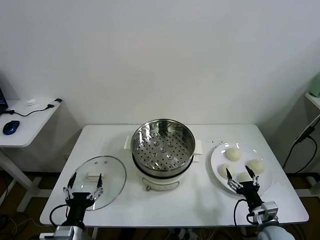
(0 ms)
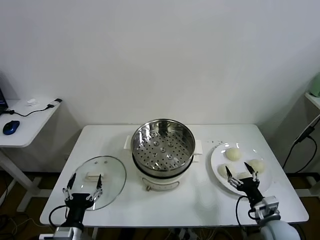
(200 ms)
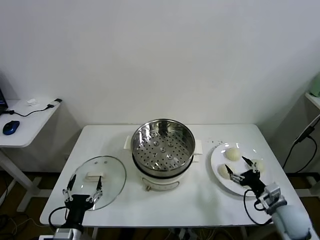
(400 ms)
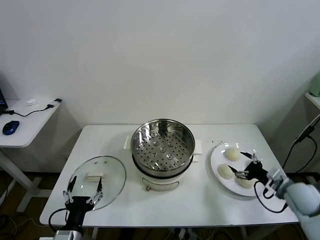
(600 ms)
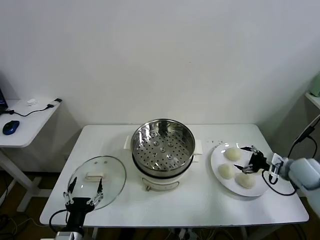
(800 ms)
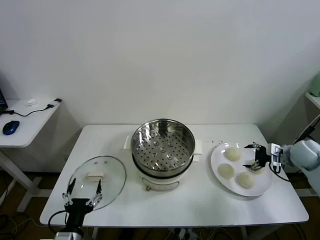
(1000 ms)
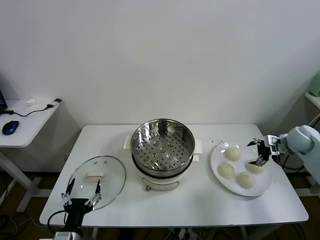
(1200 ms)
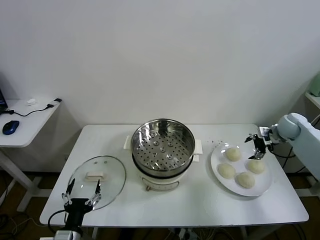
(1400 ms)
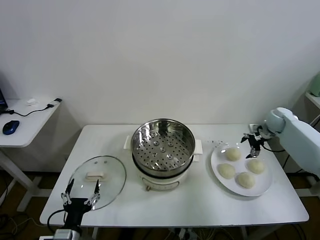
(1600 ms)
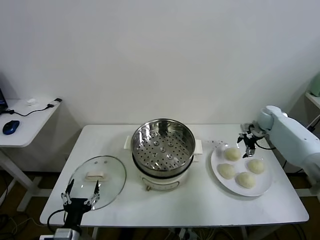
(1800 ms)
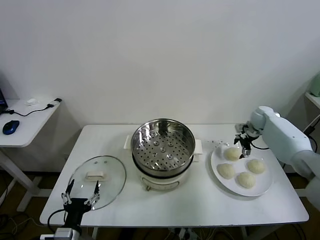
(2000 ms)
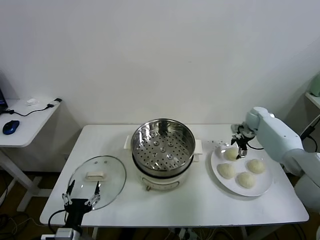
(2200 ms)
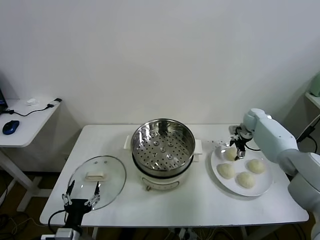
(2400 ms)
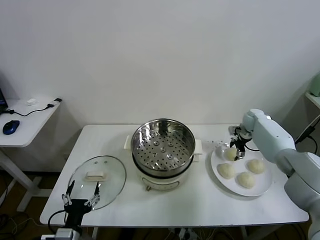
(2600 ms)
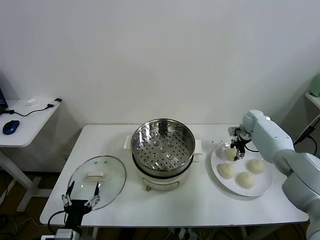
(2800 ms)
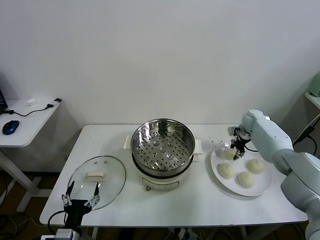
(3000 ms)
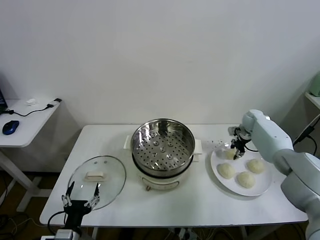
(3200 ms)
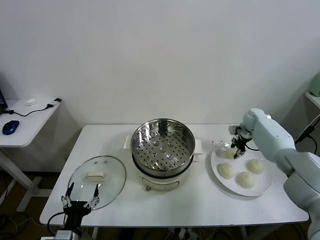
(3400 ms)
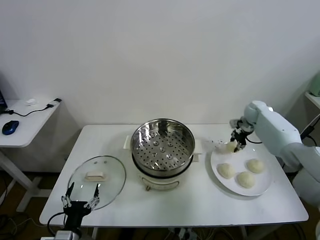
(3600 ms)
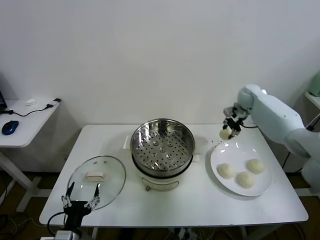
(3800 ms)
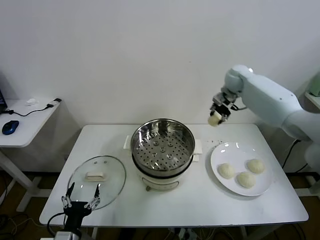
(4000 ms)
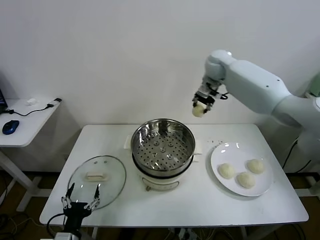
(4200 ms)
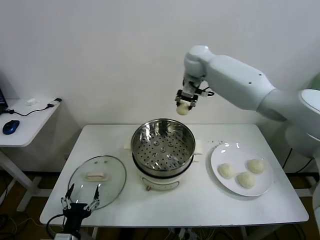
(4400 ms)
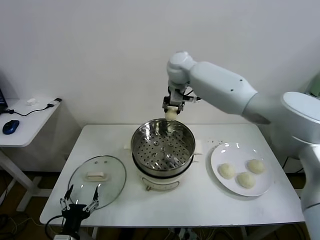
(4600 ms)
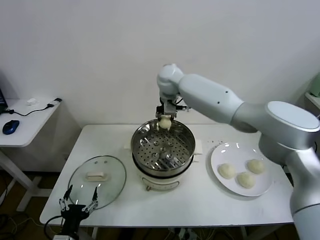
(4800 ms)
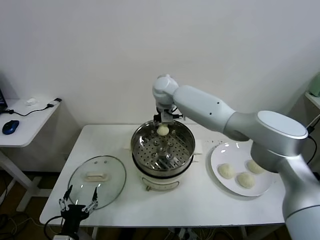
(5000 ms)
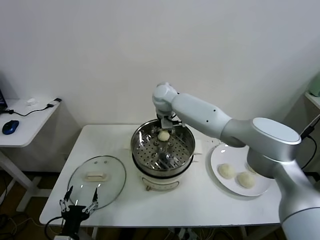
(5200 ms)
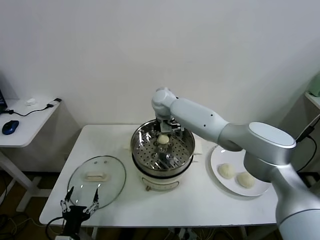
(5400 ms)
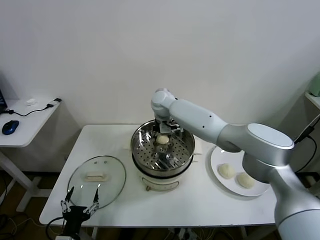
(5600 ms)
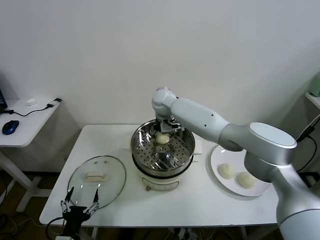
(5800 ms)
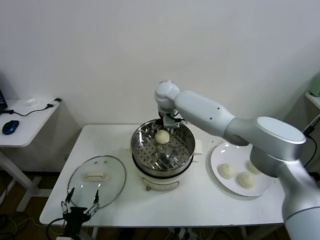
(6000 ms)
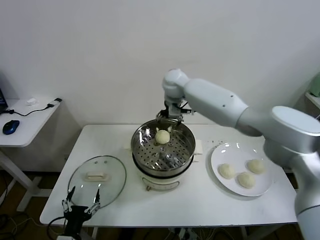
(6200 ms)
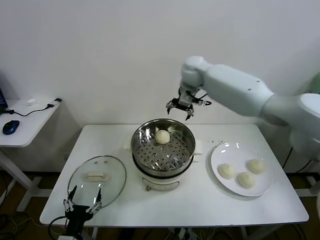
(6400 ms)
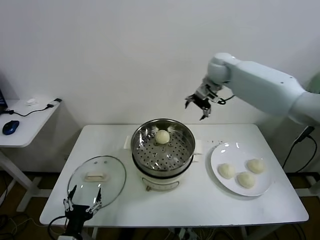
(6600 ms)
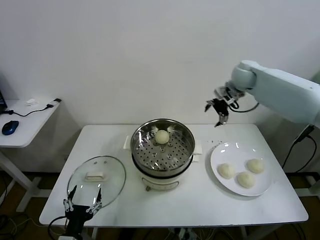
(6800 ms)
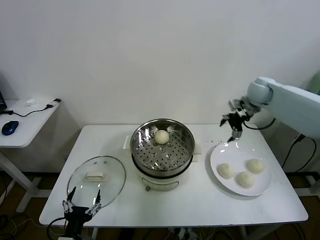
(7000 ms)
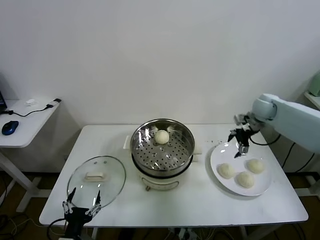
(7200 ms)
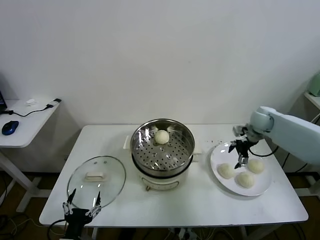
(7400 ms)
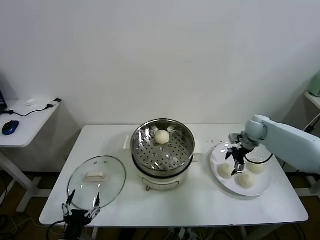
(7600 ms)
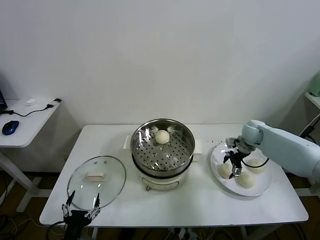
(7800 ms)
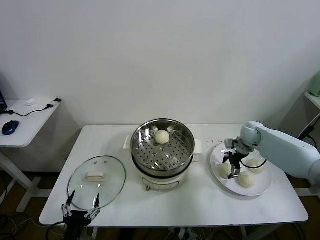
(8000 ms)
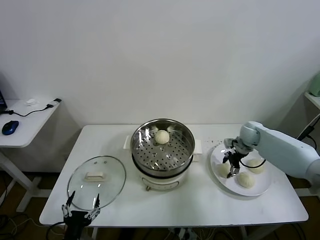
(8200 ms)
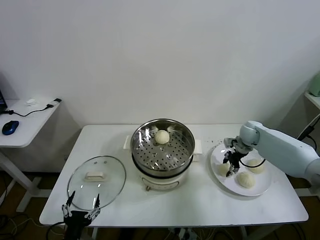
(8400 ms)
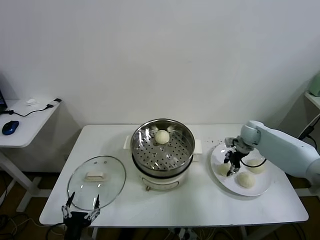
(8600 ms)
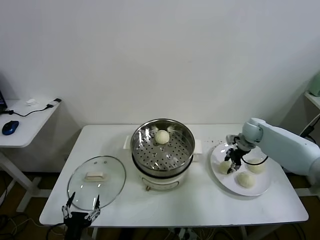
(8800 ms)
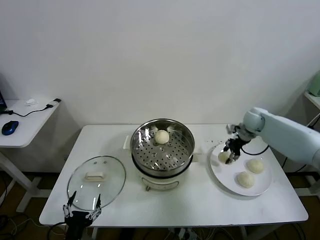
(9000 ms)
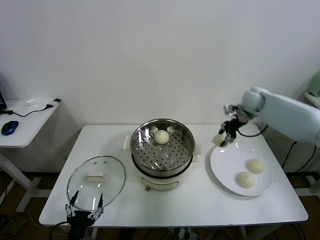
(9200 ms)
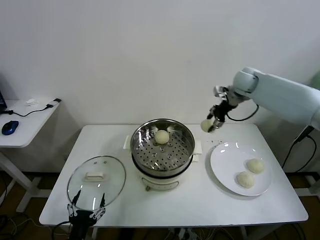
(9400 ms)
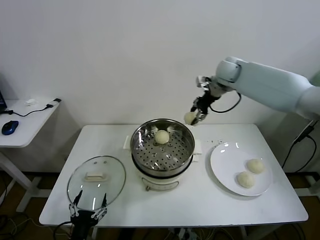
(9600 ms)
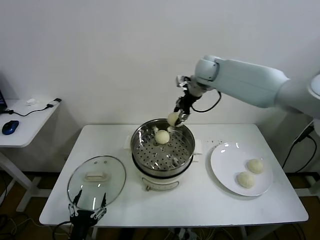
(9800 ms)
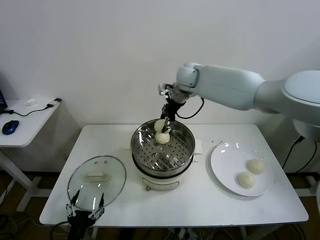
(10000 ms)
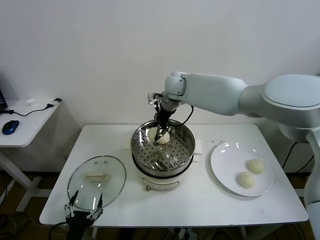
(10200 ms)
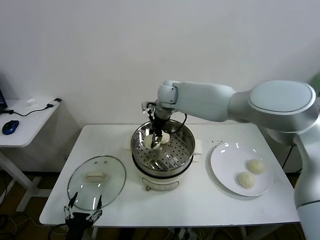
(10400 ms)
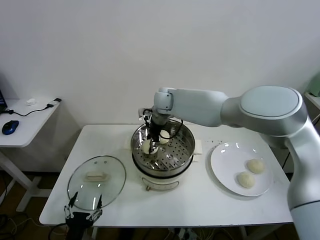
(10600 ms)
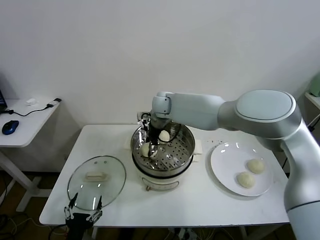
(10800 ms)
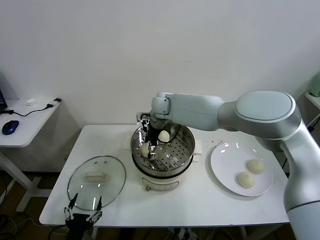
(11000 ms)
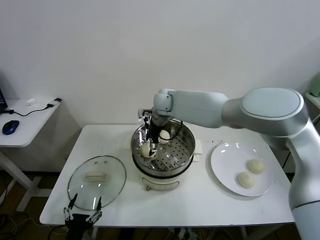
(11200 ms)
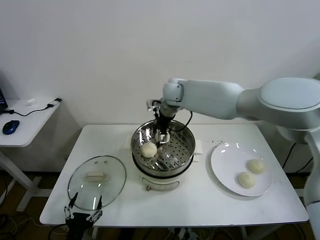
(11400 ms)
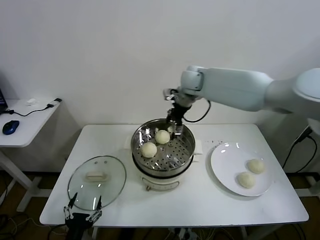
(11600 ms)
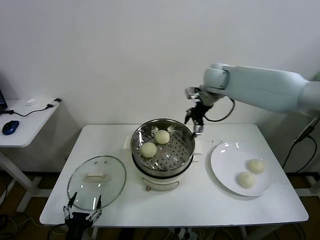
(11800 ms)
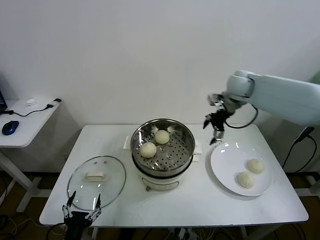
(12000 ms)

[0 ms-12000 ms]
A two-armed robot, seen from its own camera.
Task of the whole recording: take steamed baozi put them in steamer.
Step, 0 ms to 2800 ms: Grasp the baozi in the plate with right gripper.
Step, 3000 ms to 5800 ms: Place the baozi on the steamer with right gripper.
Step, 6000 ms to 8400 ms: Grasp the baozi in the plate with right gripper.
Step, 8800 ms to 11200 ms: Place the baozi on the steamer with right gripper.
1600 ms to 3000 ms: The right gripper shifts by approximately 10 cm, and closes.
3000 ms to 4400 ms: The right gripper moves to the left and upward, roughly 40 cm.
4400 ms to 6000 ms: The right gripper moves downward and to the left, approximately 10 cm, and opens.
6000 ms to 7600 ms: The right gripper heads to the right and downward, covering some 40 cm.
7600 ms to 9000 ms: The right gripper goes some 5 cm upward, and closes up.
9000 ms to 10400 ms: The right gripper shifts about 35 cm to the left.
10400 ms to 12000 ms: The right gripper travels to the right by some 25 cm, and opens its fingers.

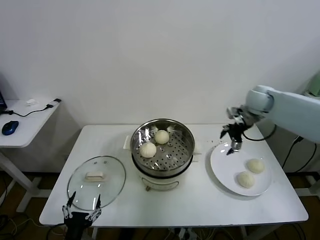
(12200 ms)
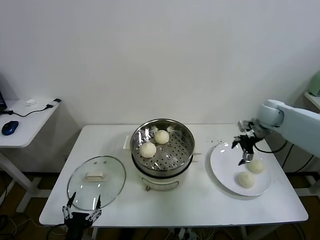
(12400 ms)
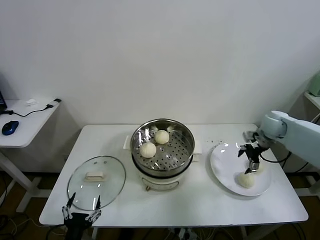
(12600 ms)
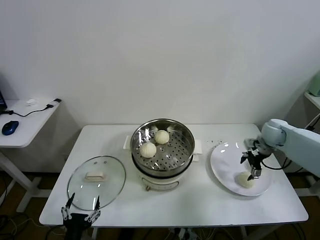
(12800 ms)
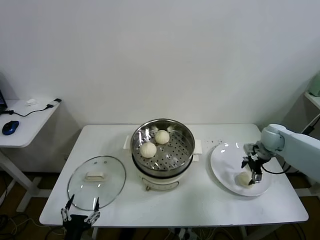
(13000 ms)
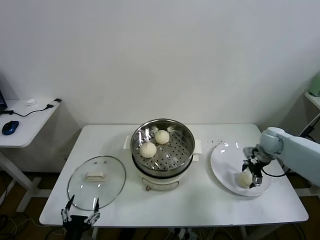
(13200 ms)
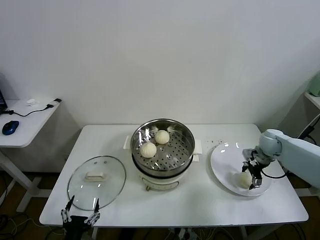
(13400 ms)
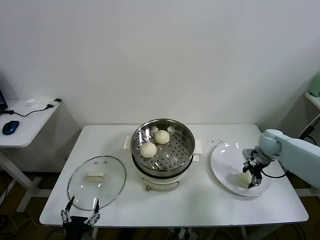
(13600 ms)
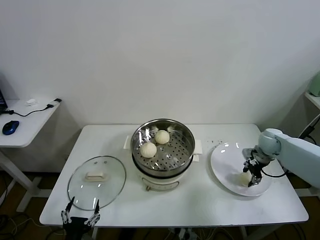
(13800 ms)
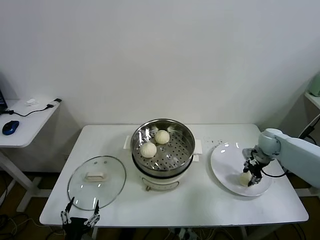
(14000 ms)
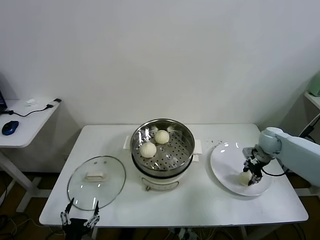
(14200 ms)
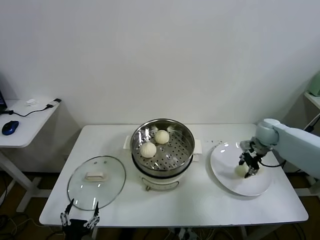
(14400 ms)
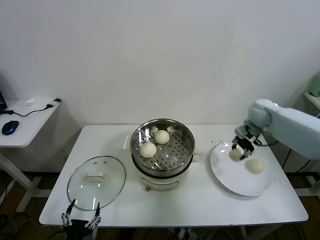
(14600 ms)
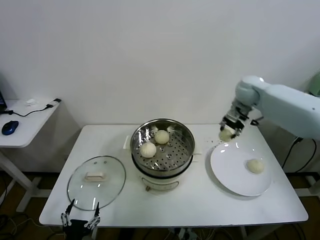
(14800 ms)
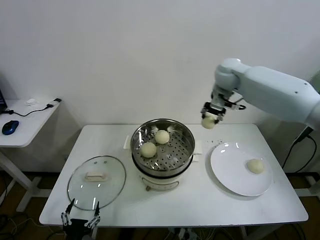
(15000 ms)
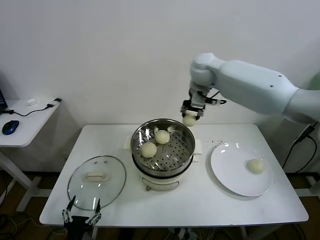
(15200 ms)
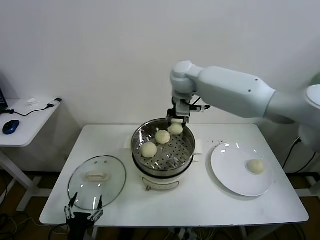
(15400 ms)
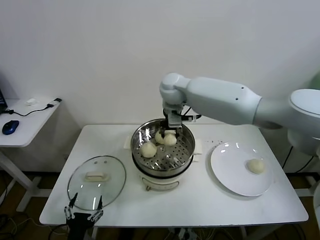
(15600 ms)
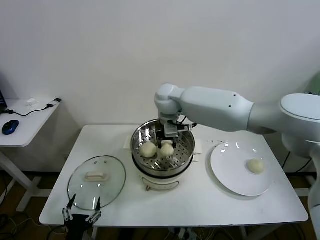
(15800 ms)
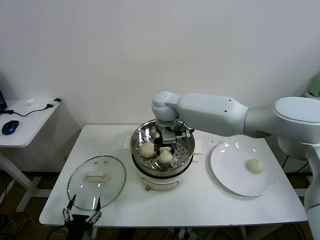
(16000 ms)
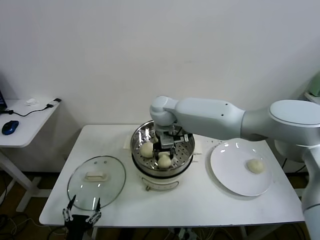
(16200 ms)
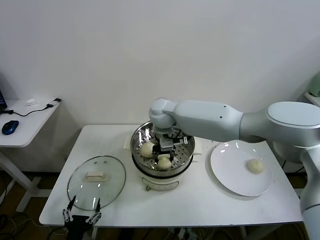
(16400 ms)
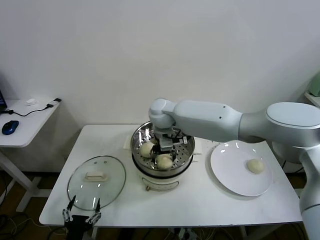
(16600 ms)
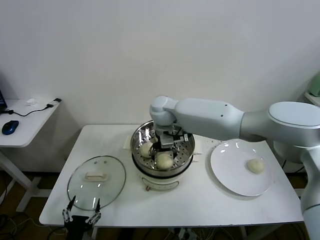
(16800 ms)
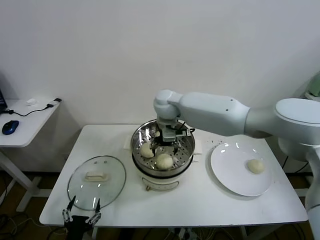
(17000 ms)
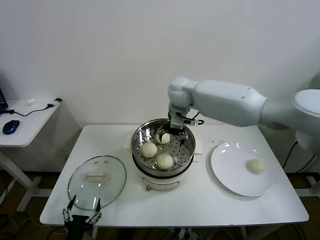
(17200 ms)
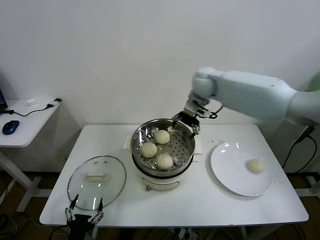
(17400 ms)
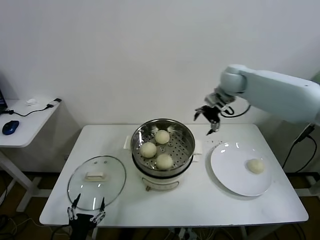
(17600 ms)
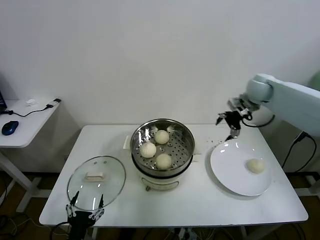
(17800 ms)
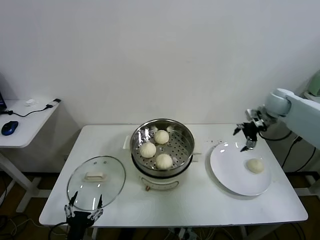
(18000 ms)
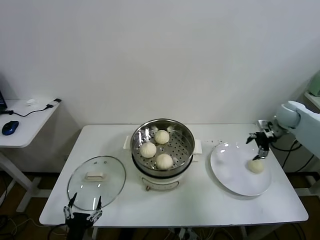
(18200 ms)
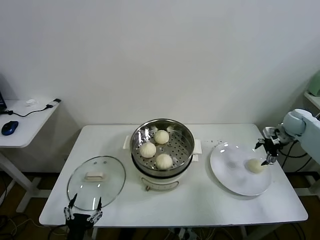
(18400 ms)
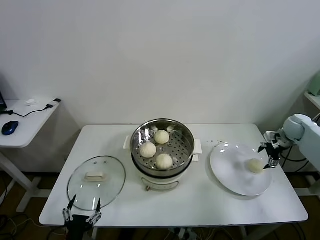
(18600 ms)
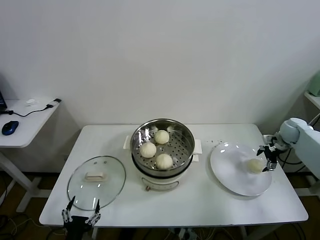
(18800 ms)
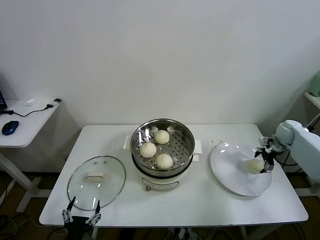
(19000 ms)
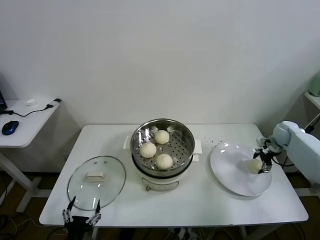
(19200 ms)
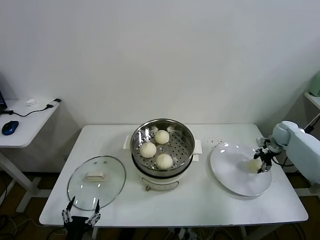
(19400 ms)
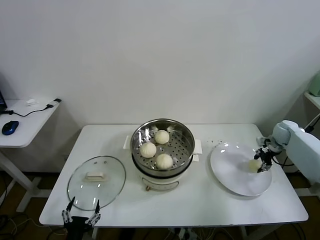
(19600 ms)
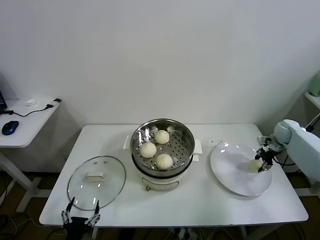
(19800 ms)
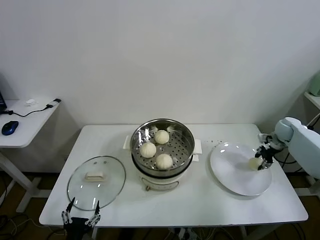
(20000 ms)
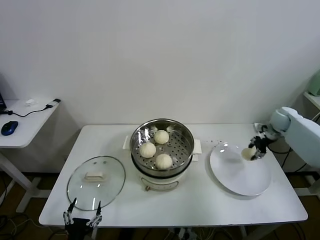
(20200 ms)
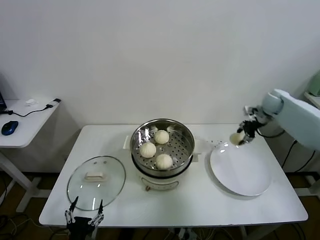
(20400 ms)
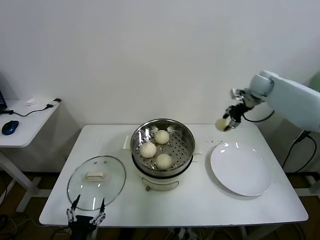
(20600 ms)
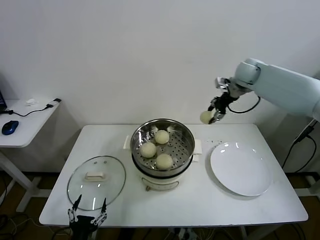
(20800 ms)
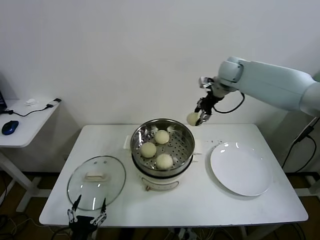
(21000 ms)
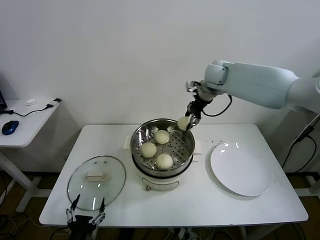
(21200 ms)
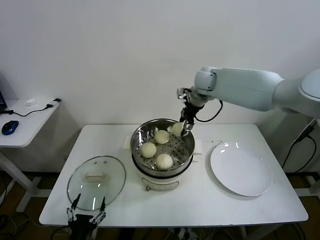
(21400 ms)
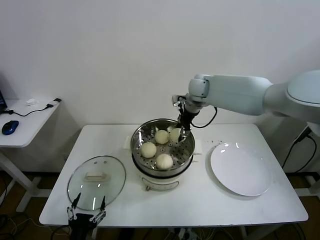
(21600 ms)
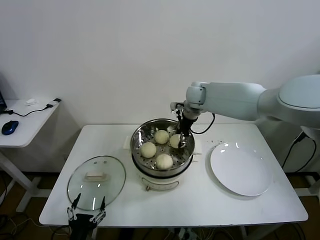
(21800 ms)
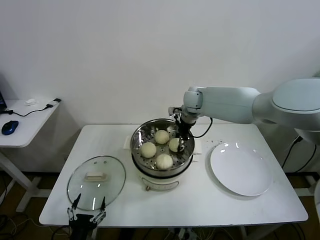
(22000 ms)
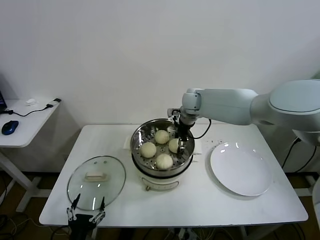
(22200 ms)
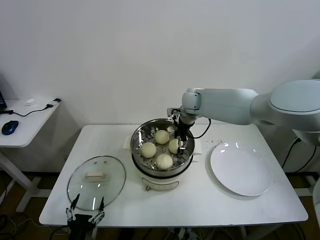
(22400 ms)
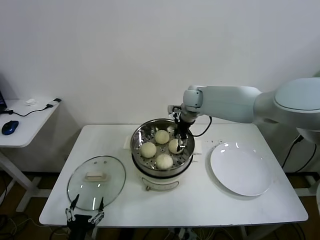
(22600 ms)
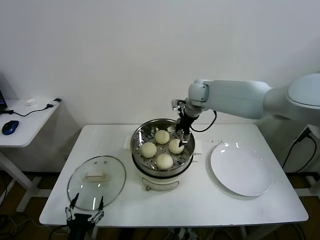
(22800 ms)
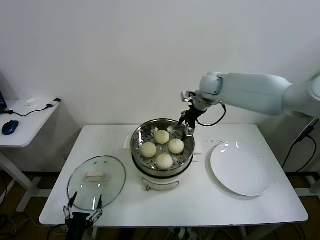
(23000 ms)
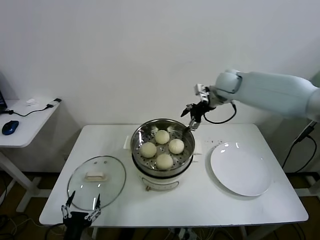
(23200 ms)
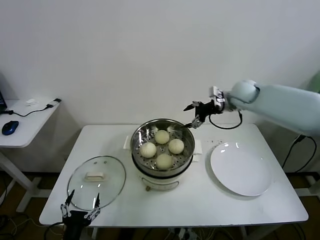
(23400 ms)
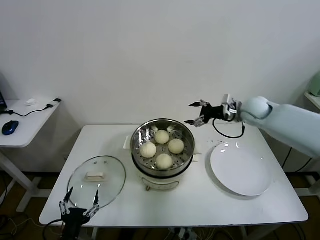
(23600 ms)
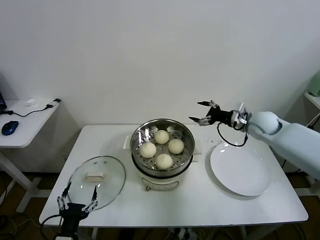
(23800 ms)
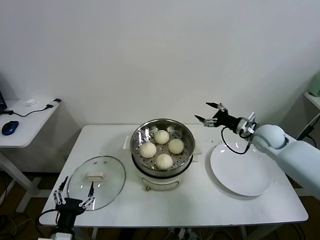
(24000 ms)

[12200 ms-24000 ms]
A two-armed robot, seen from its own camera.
Task of the whole recording: take steamed baozi put them in steamer.
Step, 12200 ms to 14000 ms: Grasp the baozi in the plate with right gripper.
Step, 14200 ms to 16600 ms: Place the baozi on the steamer with right gripper.
Step, 17000 ms to 19600 ms: Grasp the baozi in the plate with right gripper.
Step, 19800 ms to 22400 ms: Place the baozi on the steamer with right gripper.
12200 ms to 13600 ms: The right gripper moves downward and to the right, approximately 15 cm, and closes.
13600 ms to 15200 ms: The right gripper goes some 40 cm to the left and upward, and closes up.
15200 ms to 16600 ms: The right gripper goes about 20 cm downward, to the left and backward, and opens.
16600 ms to 18200 ms: The right gripper travels to the right by approximately 50 cm.
18200 ms to 19600 ms: The right gripper moves downward, roughly 10 cm, and closes.
19600 ms to 21000 ms: The right gripper goes some 35 cm to the left and upward.
21000 ms to 22600 ms: The right gripper heads to the left and downward, covering some 15 cm, and opens up.
22600 ms to 24000 ms: The right gripper heads to the right and backward, covering some 25 cm.
